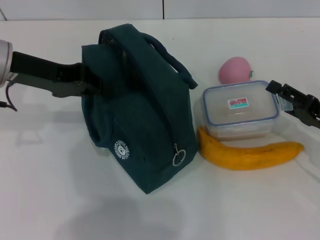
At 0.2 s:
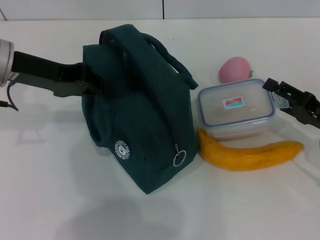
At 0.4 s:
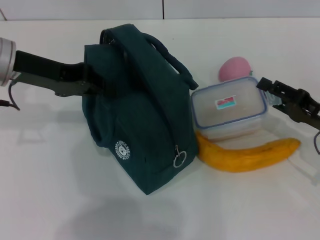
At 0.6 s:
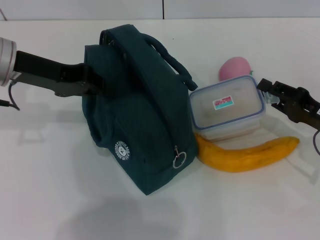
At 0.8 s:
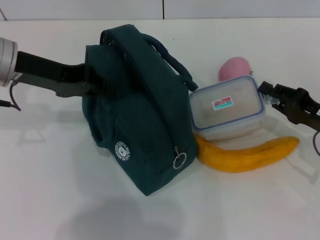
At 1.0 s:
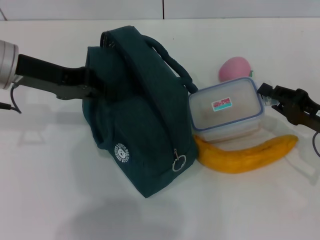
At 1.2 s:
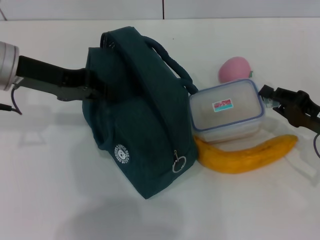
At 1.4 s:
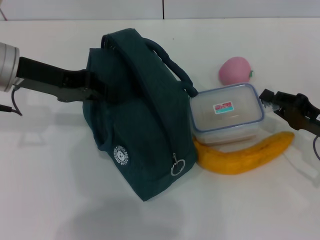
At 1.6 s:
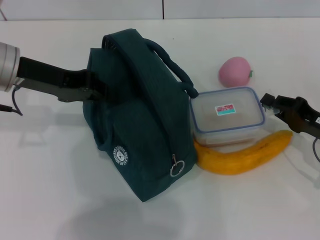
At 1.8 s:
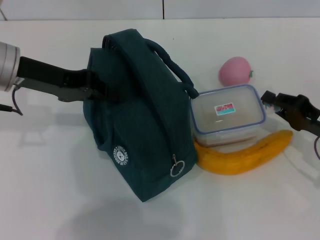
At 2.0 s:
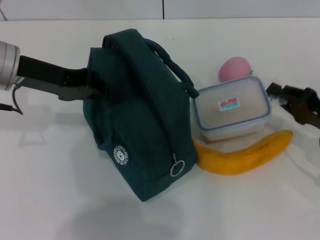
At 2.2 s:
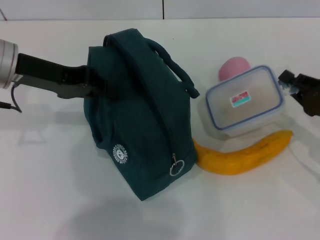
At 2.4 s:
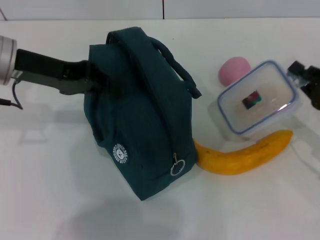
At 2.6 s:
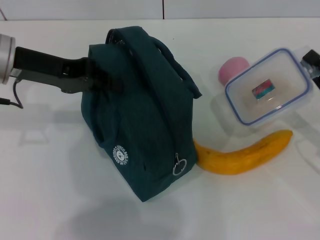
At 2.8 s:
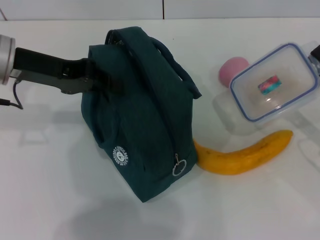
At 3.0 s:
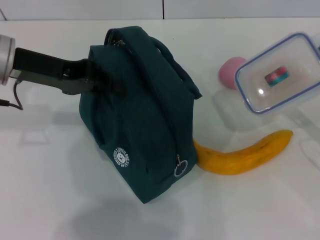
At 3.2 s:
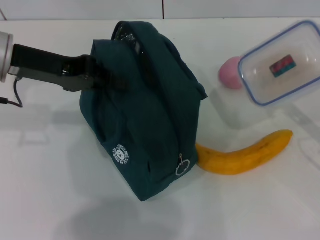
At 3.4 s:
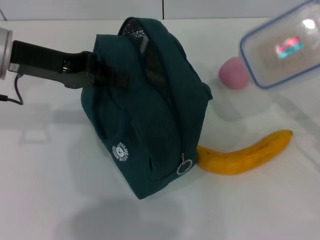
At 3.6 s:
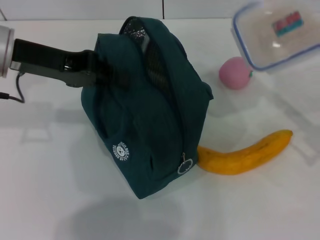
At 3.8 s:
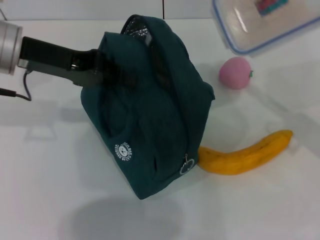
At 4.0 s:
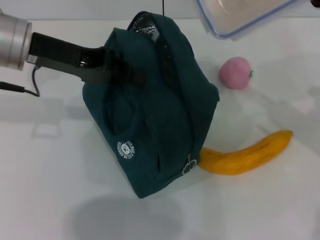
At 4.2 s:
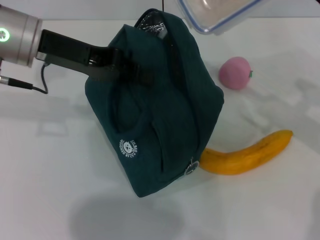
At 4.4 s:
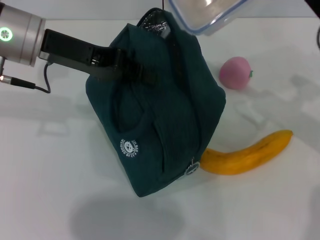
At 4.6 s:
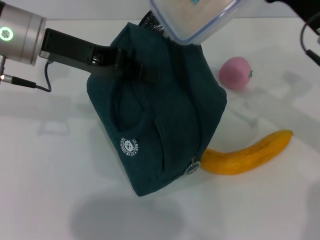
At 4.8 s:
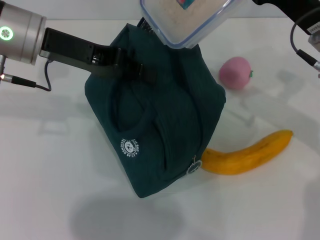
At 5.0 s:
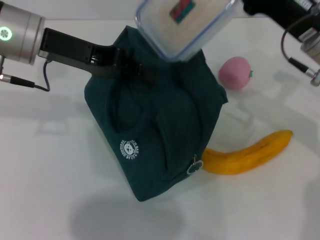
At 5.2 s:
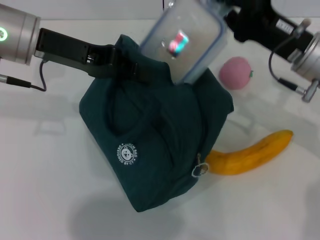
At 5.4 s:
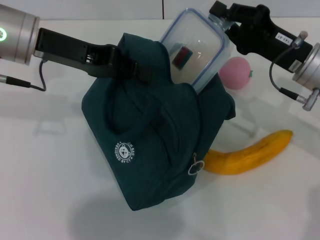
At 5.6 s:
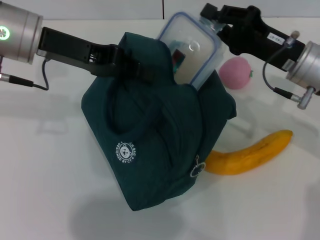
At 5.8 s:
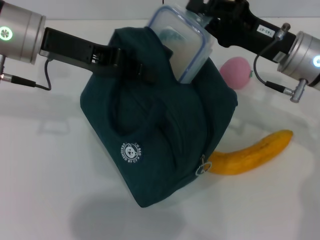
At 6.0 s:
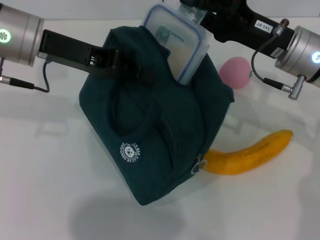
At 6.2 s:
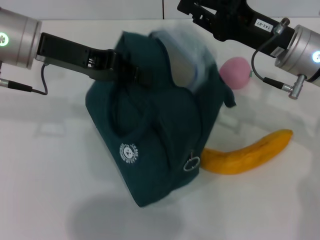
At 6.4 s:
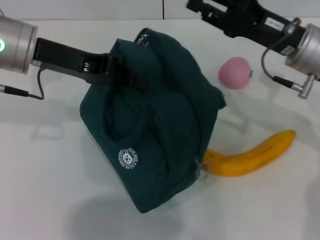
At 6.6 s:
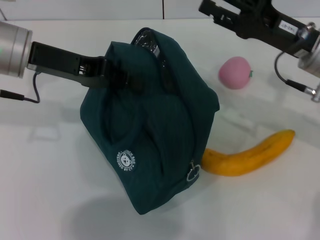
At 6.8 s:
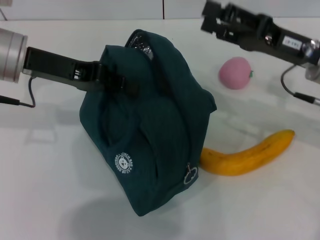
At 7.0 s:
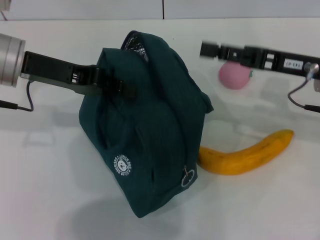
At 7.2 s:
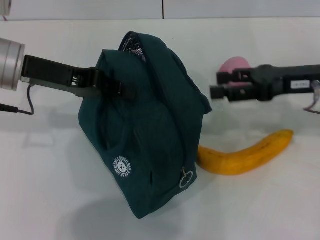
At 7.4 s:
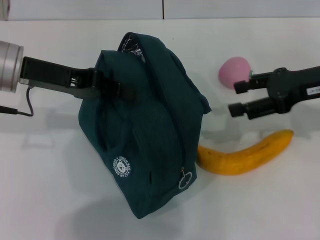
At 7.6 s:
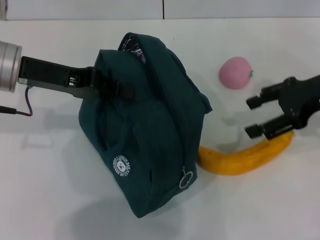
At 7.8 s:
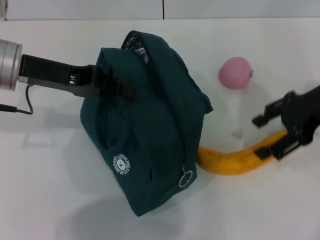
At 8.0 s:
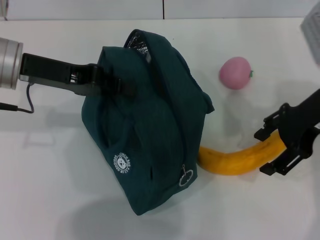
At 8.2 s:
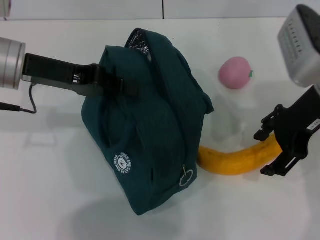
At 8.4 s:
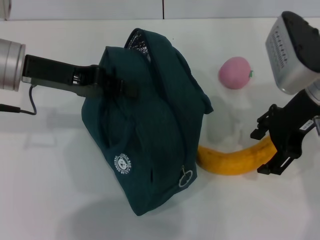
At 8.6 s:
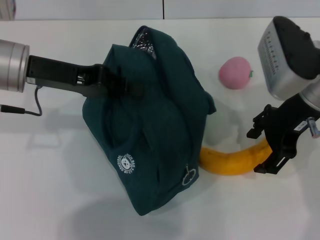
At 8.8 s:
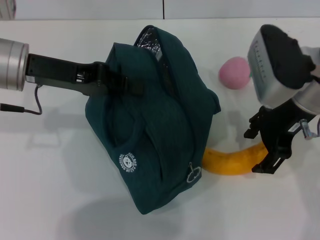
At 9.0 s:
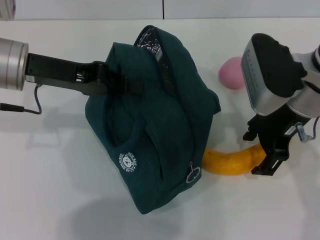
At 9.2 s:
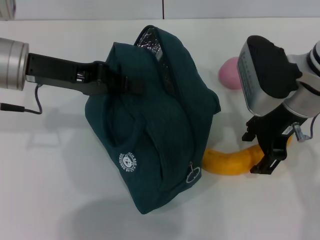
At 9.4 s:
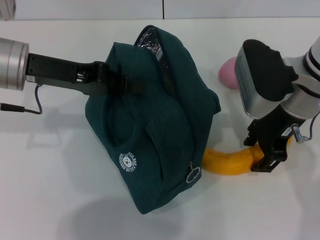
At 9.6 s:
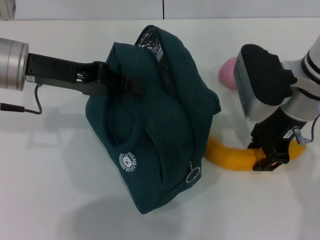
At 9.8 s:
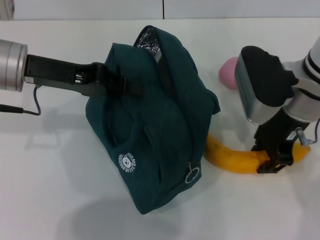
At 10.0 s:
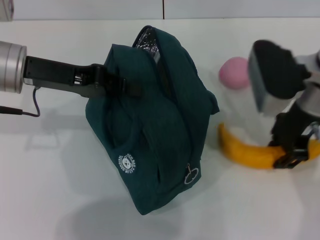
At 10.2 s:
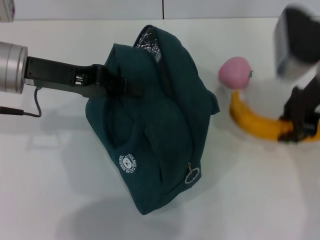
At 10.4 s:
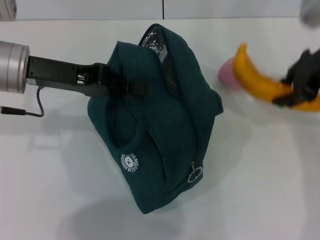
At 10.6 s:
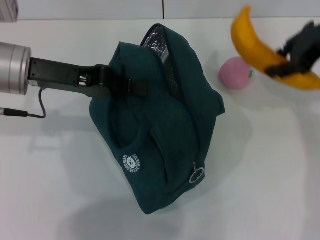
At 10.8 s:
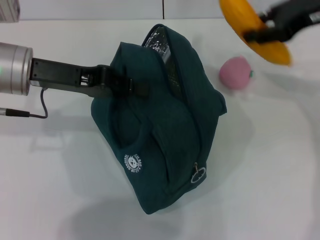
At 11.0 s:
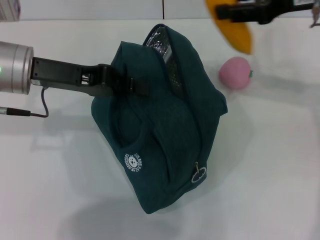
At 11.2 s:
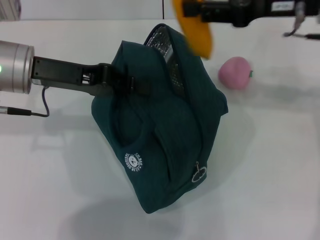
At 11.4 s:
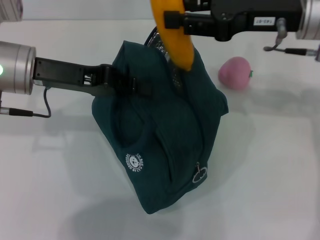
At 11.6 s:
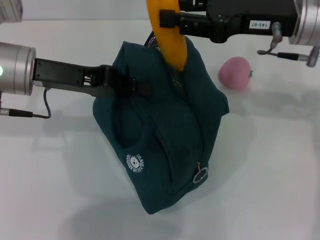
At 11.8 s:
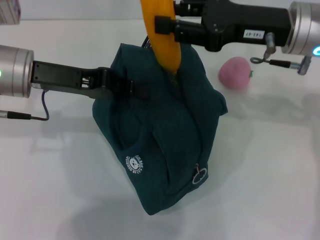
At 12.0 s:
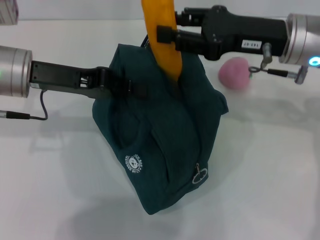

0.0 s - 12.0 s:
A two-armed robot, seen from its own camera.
Step, 1.4 s - 6.8 s: Place the lunch box into the lunch bag with your right hand.
Step, 7.0 s - 9.6 s: Take the banana with your right hand.
0.0 s - 1.6 s: The right gripper closes up.
1.6 s - 3.0 s: The right gripper changes place by about 5 cm.
3.0 s - 4.4 s: The right gripper heads to the left, upward and forward, covering about 15 cm.
4.4 s - 6.0 s: The right gripper goes roughly 5 cm to the left.
6.0 s - 7.6 s: The right gripper is displaced to the right by about 10 cm, and opens up.
7.6 s - 9.0 s: The right gripper heads to the left, covering roughly 10 cm.
9.0 s - 10.4 s: The right gripper goes some 10 cm upward and to the right, and closes up.
10.4 s - 12.0 s: The right gripper is displaced downward by some 5 cm.

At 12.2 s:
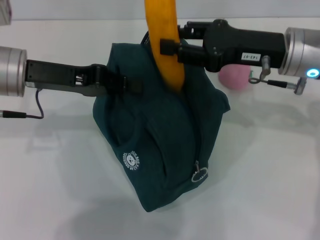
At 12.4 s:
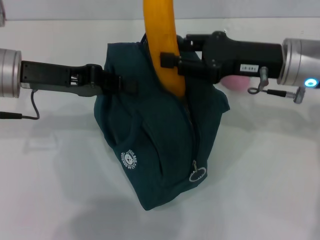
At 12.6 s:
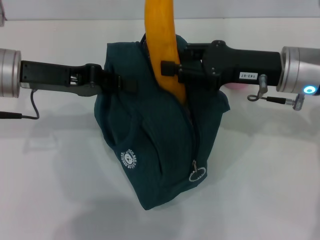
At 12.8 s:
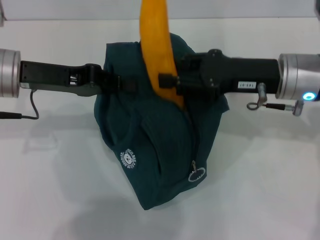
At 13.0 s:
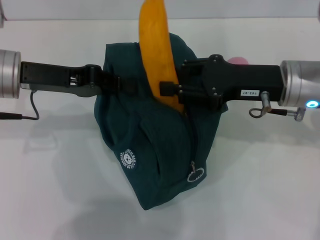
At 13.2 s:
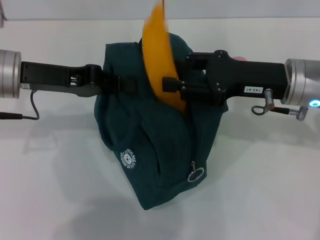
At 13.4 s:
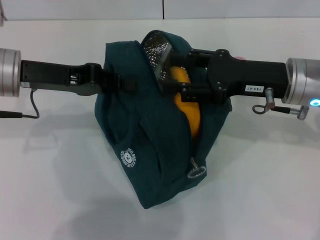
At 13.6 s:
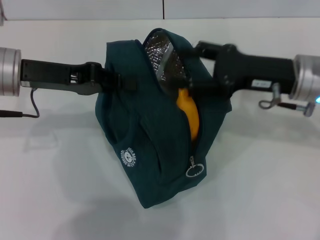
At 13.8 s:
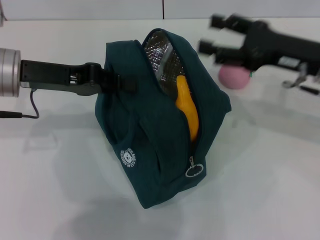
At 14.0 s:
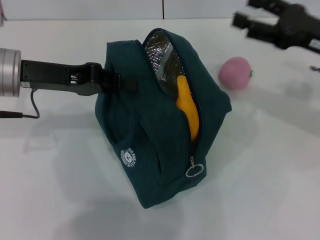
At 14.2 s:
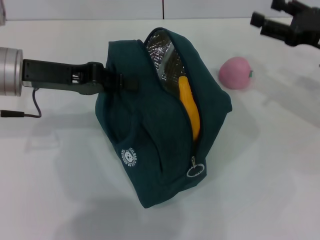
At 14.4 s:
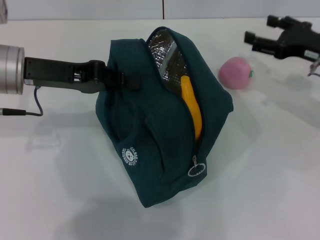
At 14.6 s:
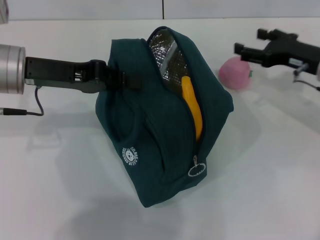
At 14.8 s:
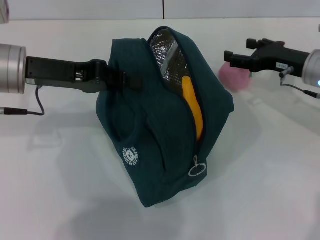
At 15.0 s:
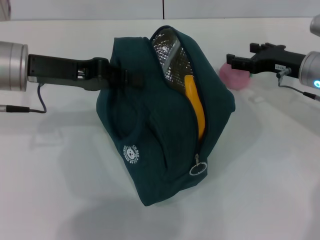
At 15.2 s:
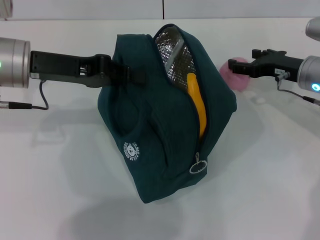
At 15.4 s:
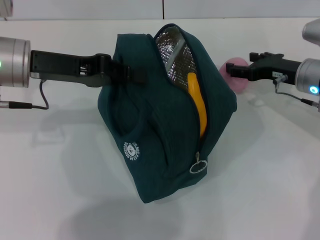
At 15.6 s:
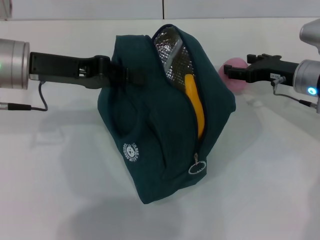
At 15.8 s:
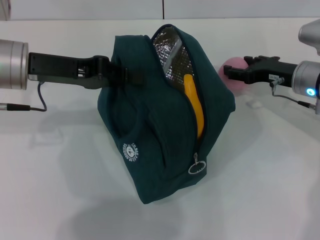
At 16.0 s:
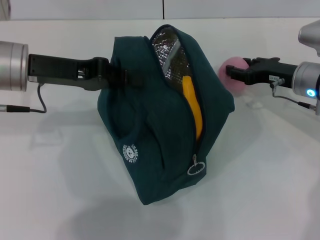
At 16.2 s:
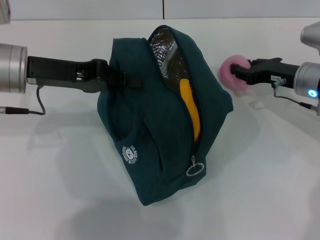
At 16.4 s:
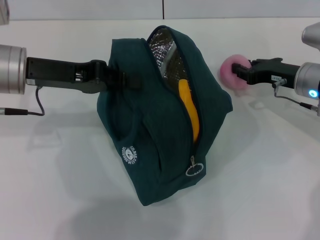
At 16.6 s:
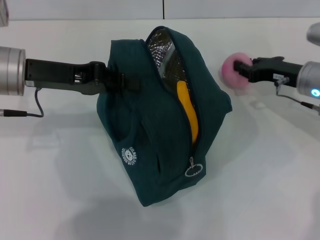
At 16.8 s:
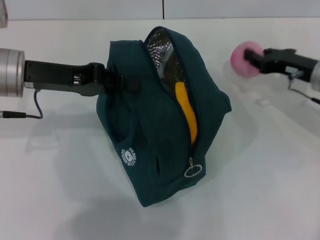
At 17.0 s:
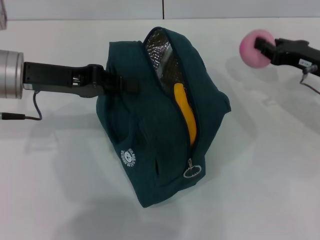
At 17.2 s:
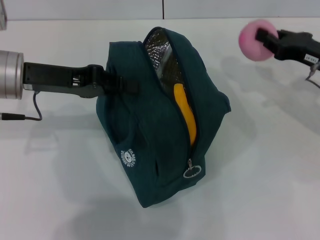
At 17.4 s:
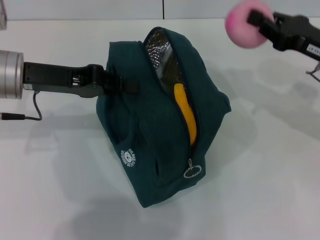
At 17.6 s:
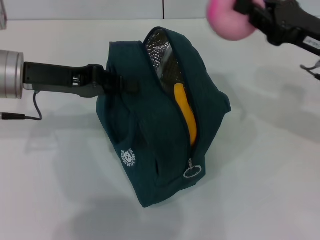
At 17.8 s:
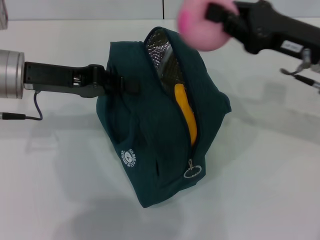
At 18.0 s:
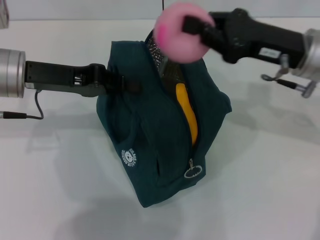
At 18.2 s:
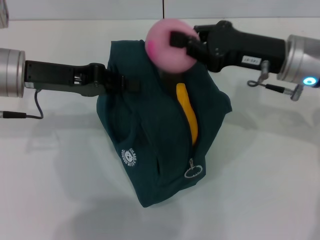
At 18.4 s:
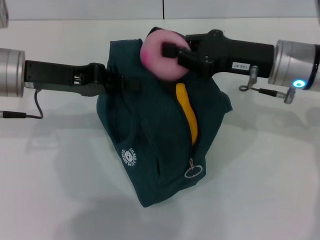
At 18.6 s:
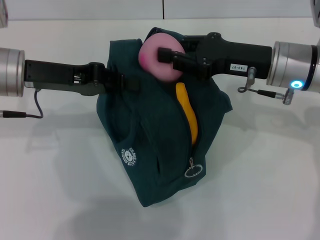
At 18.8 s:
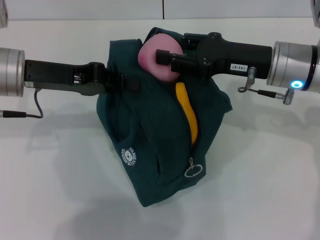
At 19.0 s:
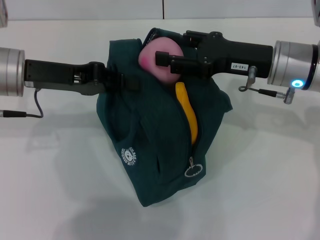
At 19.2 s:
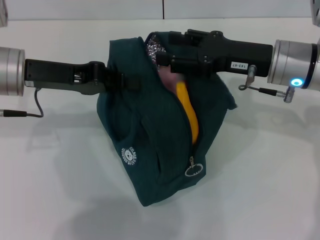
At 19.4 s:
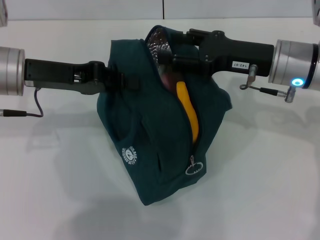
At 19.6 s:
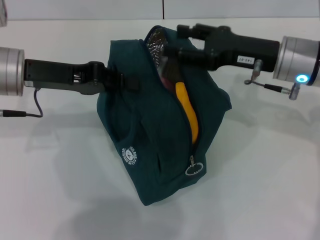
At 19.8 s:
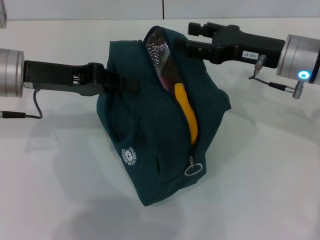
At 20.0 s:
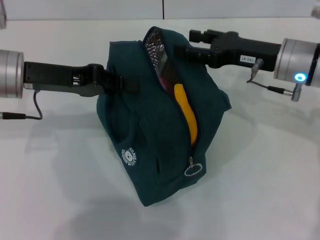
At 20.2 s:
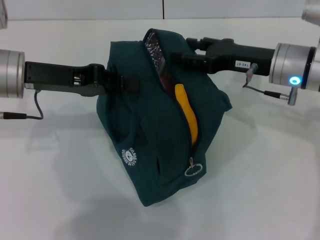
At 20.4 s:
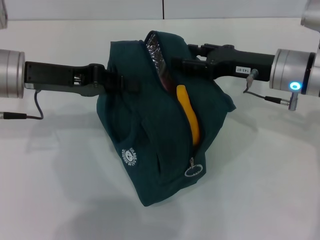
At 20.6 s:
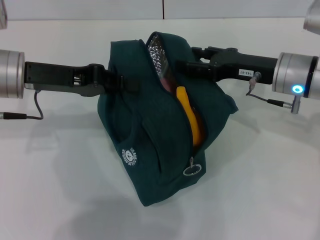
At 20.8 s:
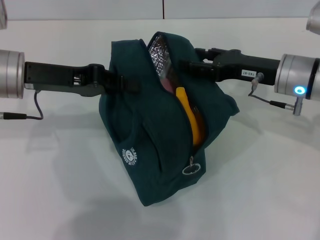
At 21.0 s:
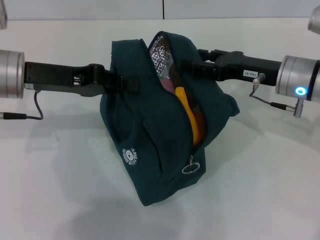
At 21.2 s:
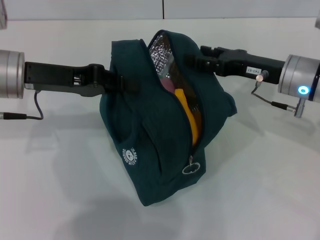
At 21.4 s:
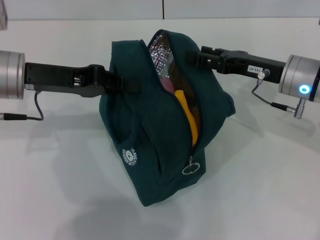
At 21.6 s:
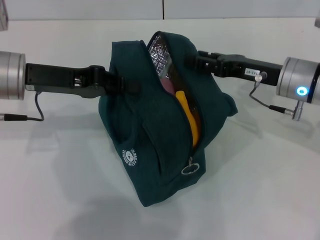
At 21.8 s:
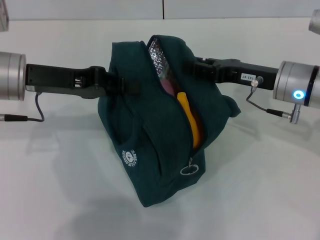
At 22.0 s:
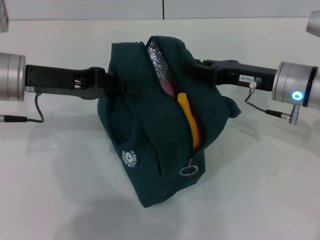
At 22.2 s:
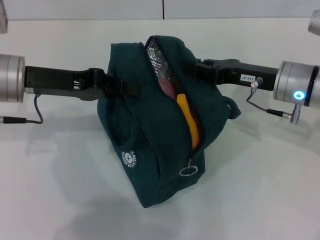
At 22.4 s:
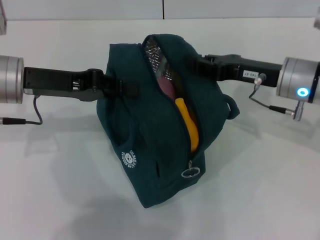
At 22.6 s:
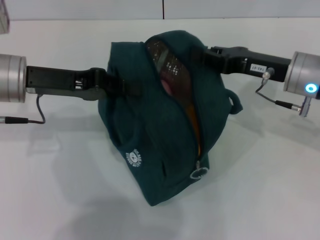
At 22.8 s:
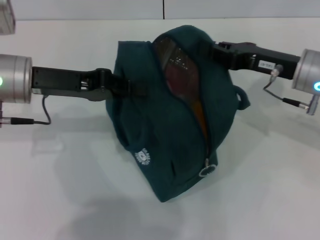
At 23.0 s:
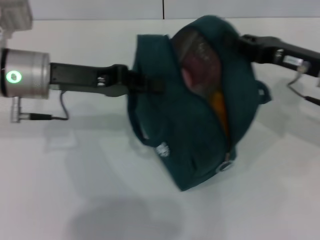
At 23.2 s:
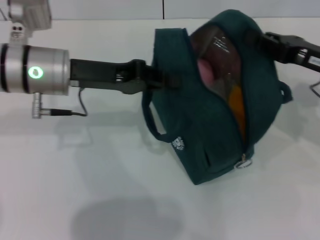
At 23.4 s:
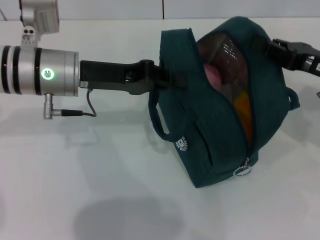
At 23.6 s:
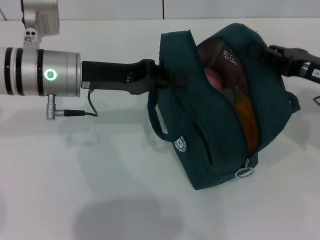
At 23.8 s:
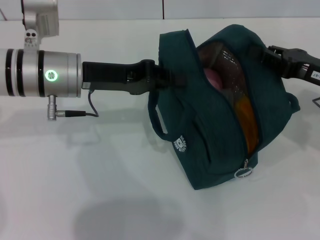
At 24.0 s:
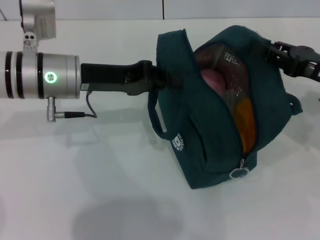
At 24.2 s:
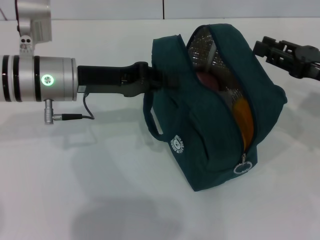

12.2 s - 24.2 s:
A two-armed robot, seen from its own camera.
Step, 13.8 s - 16.0 s: Grab the peach with your right hand.
12.2 s - 13.8 s: The right gripper travels to the right by roughly 5 cm, and opens.
13.8 s - 15.2 s: The right gripper travels downward and forward by roughly 10 cm.
15.2 s - 16.6 s: The right gripper closes.
16.6 s - 18.2 s: The right gripper shifts roughly 10 cm upward and to the left.
18.2 s - 19.8 s: The right gripper opens.
19.8 s - 21.2 s: There are only small adjustments of the grippers.
21.2 s - 22.6 s: The right gripper closes its fingers.
22.6 s - 24.2 s: The right gripper moves to the right, about 10 cm. Meanwhile the left gripper moves to the right, roughly 5 cm.
